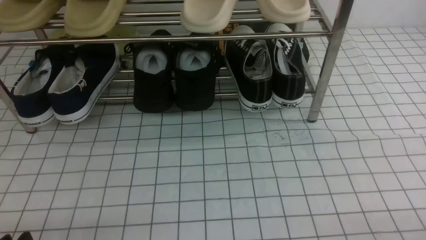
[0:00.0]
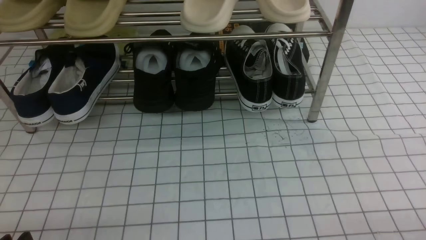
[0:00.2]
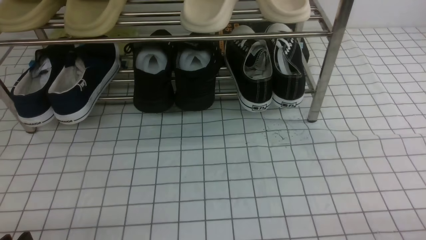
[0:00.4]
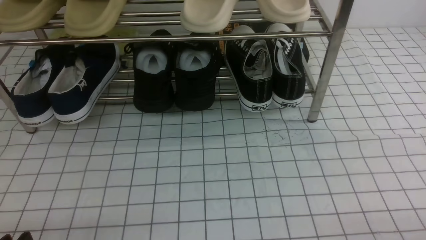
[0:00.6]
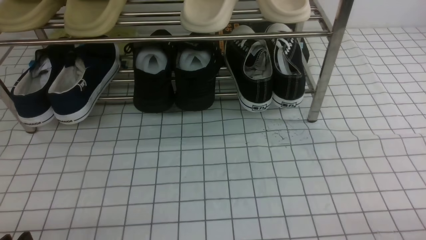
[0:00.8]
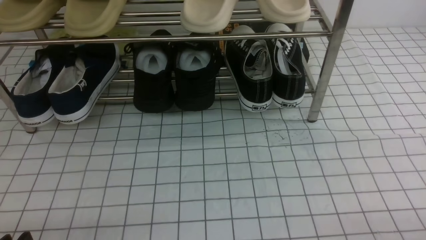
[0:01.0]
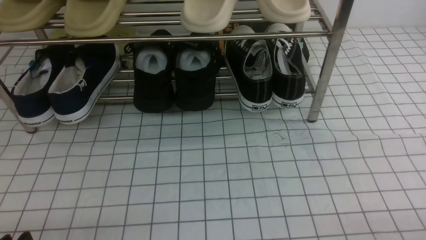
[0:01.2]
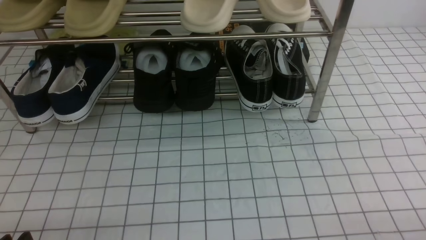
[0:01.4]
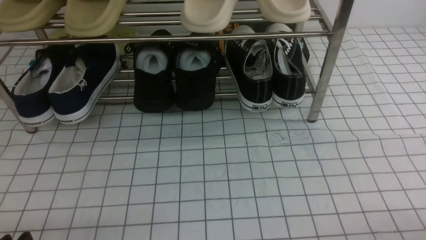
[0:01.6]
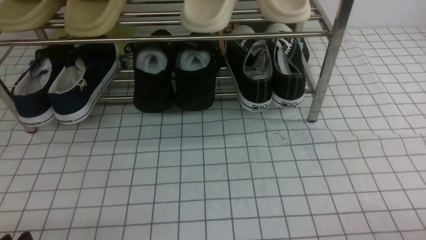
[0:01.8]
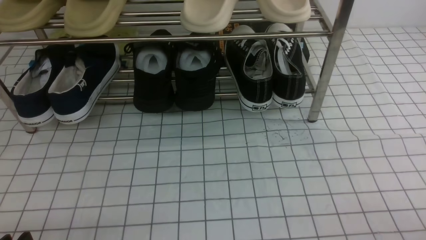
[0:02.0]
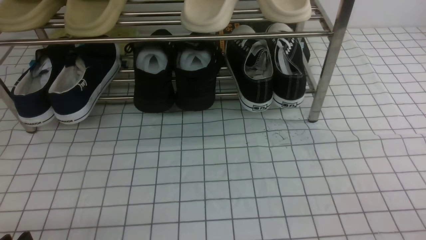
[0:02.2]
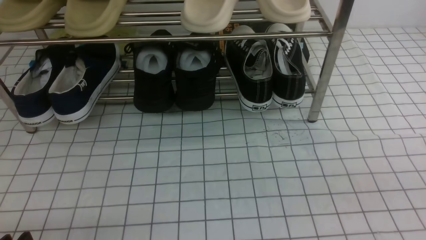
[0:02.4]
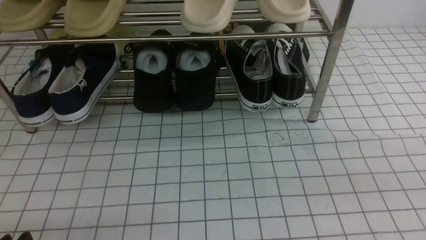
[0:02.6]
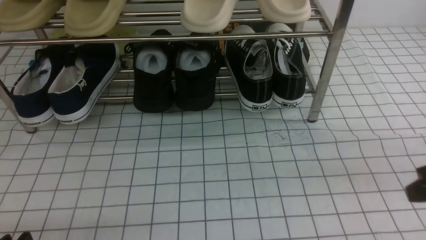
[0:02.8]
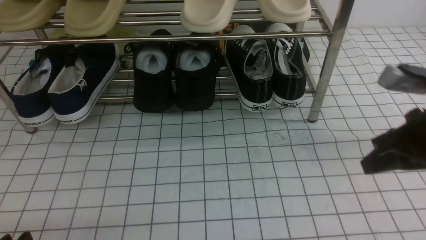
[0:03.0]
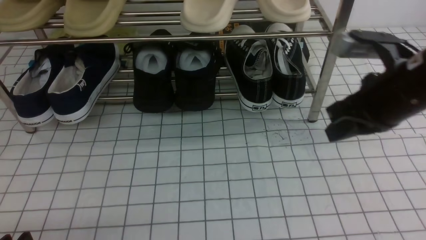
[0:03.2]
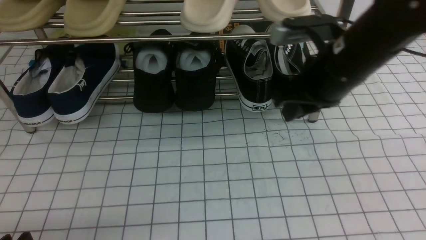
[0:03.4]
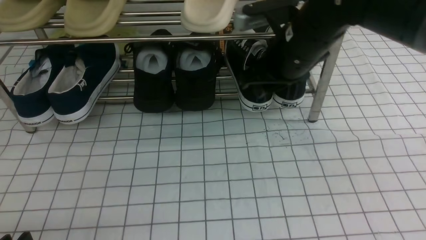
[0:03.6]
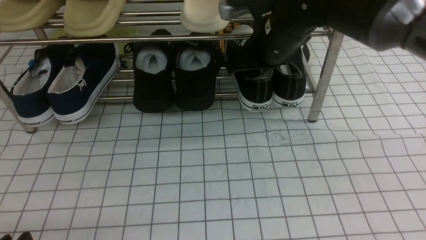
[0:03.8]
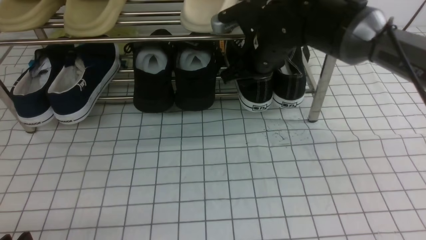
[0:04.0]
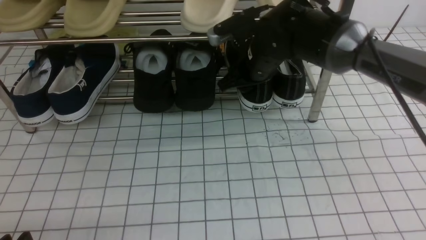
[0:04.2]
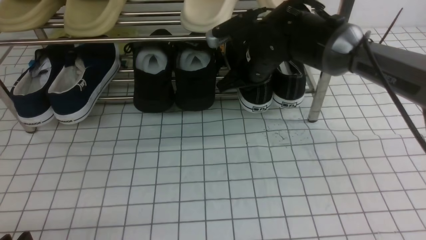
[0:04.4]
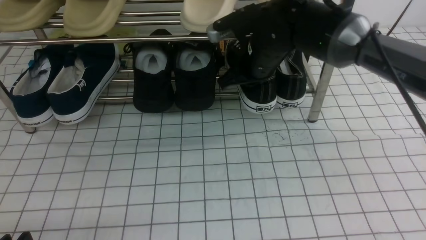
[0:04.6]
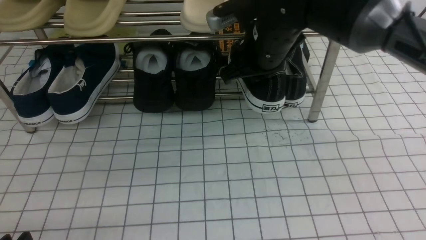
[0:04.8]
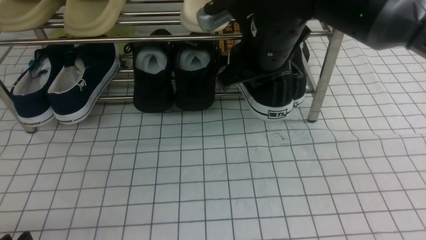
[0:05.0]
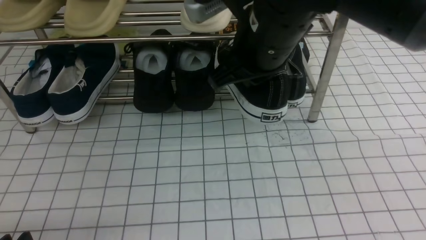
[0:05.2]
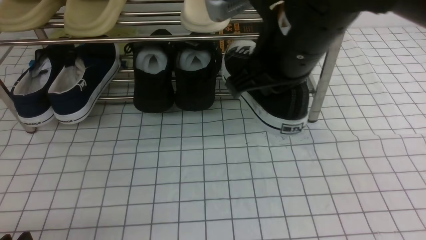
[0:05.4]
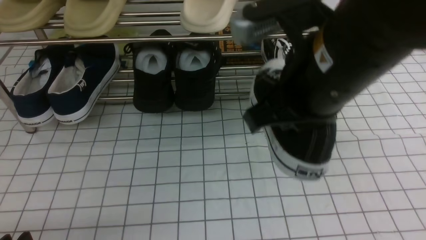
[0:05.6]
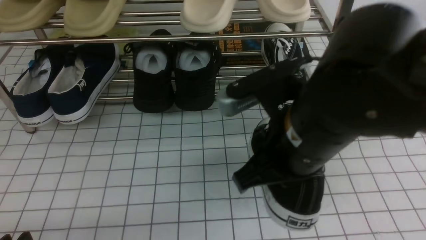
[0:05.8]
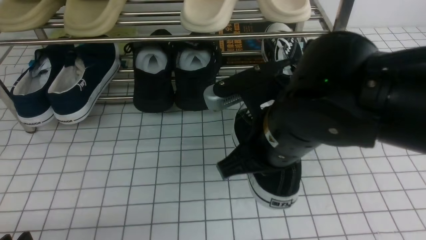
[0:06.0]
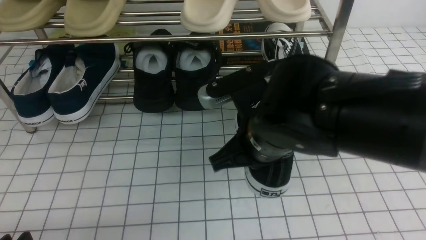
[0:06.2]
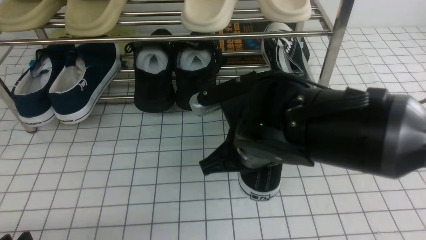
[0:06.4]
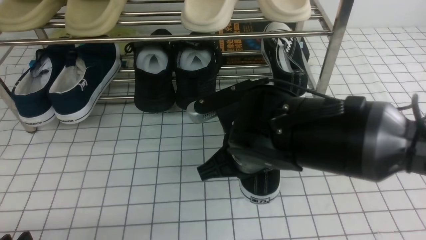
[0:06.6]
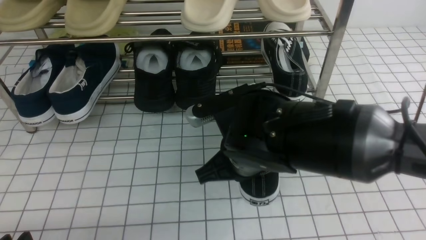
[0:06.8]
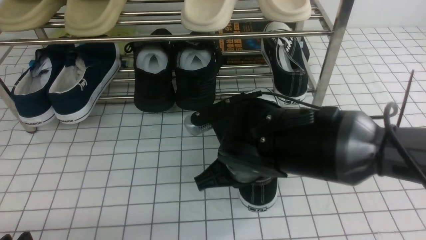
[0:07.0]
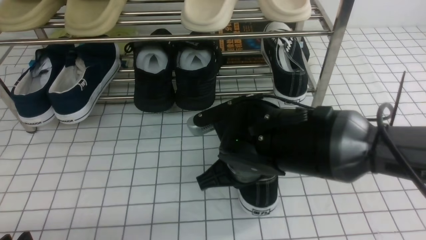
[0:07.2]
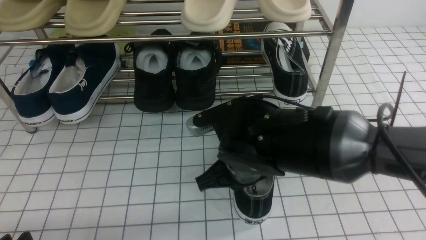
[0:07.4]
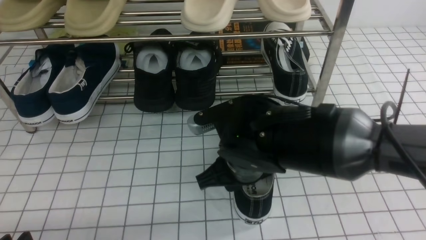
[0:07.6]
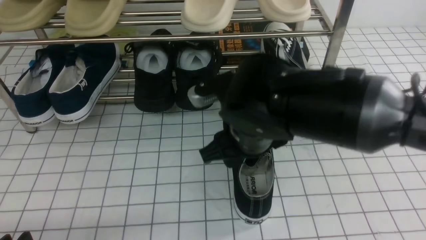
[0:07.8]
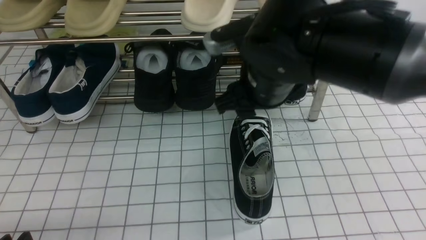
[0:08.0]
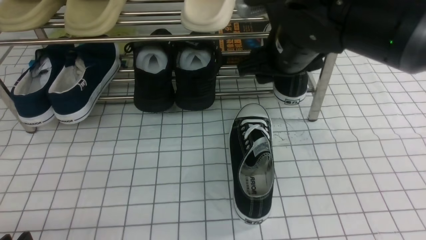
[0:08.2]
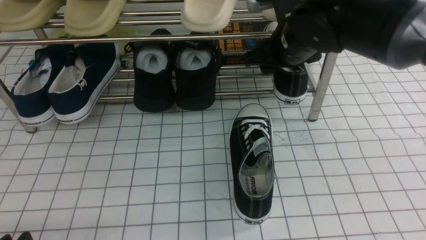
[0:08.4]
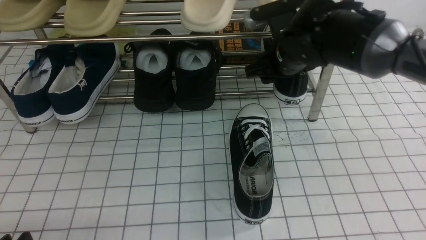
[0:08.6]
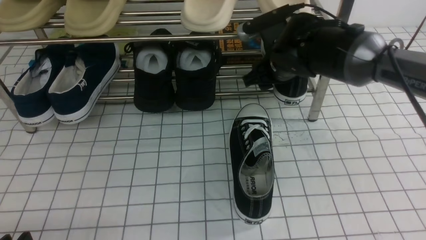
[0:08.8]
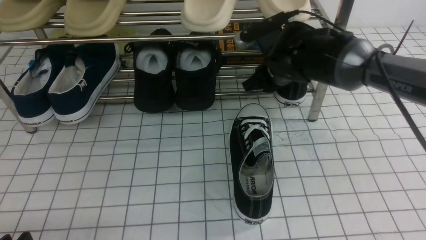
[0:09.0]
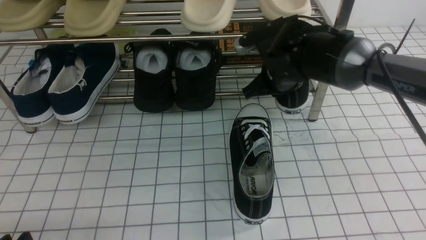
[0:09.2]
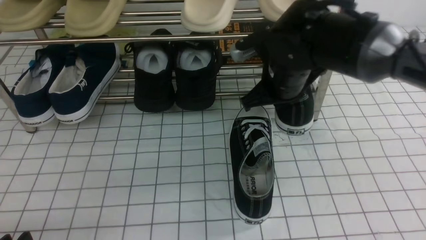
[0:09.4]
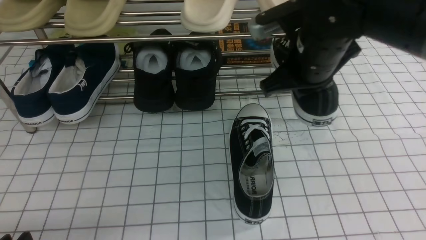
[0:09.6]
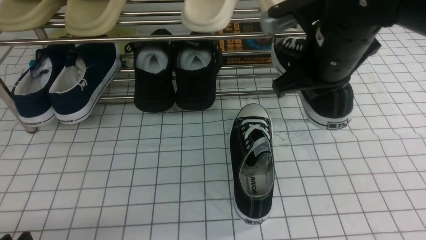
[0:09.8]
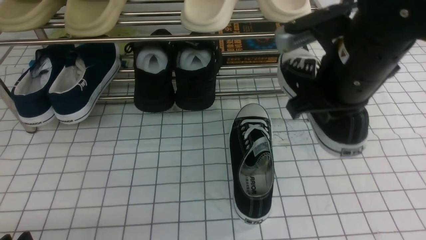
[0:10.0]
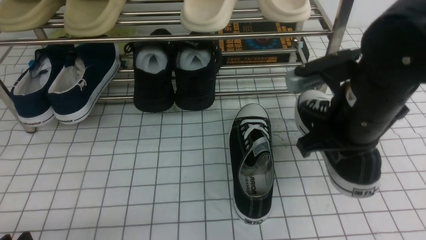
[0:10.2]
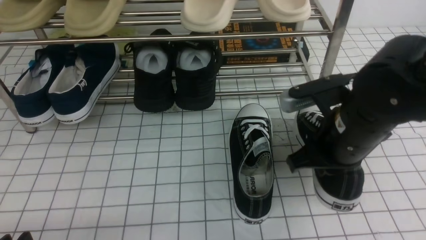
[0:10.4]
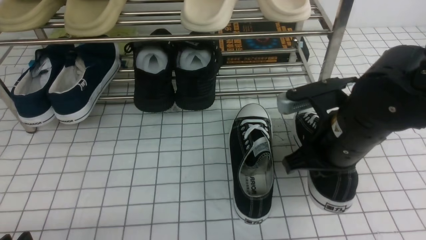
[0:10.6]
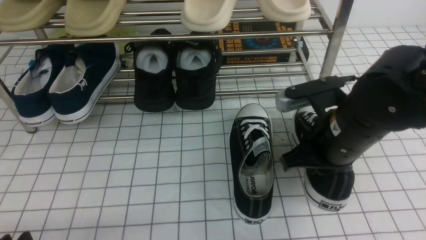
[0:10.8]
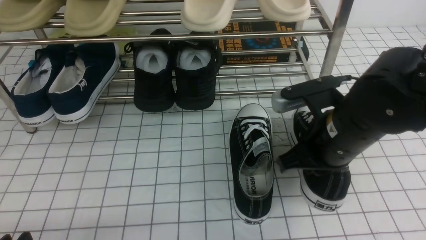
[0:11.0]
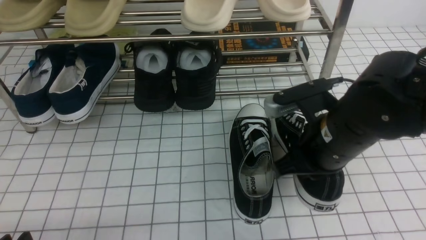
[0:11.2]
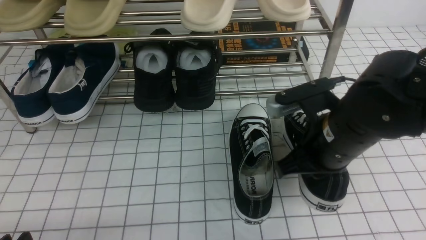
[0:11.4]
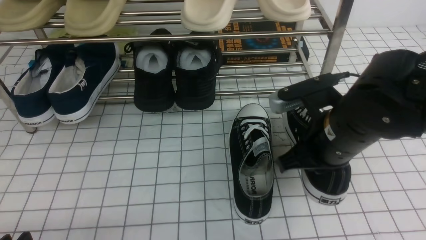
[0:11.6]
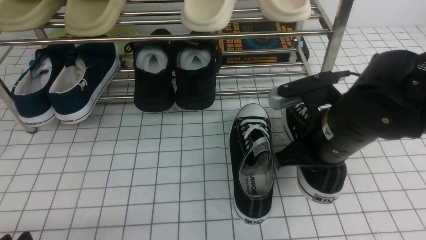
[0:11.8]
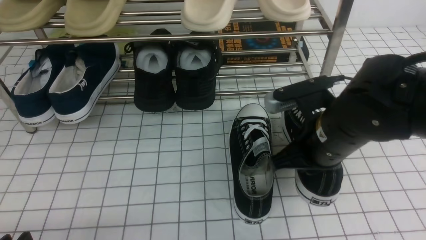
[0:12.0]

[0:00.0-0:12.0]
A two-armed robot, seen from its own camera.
Step, 0:00.0 to 0:04.4: use the right arm to clamp a shoe on the right side of the shoe rack.
Step, 0:04.6 to 0:07.8: use the right arm to take out the clamped shoe from the shoe rack and put it down.
Step, 0:08.0 to 0:09.0: use the right arm to clamp a shoe on the right side of the shoe rack.
0:01.6 to 0:03.0: The right gripper is displaced forward and upward by some 20 cm, and closes its fingers.
0:03.0 to 0:04.4: The right gripper is displaced forward and to the left by roughly 30 cm, and opens, then closes once more.
0:04.4 to 0:06.0: The right gripper travels backward by about 20 cm.
0:06.0 to 0:07.6: The right gripper goes roughly 10 cm downward, and opens its fingers.
0:07.6 to 0:09.0: The right gripper travels forward and to the right by some 20 cm.
0:09.0 to 0:10.4: The right gripper is displaced backward by some 15 cm, and closes up.
0:10.4 to 0:12.0: There are only small adjustments of the grippers.

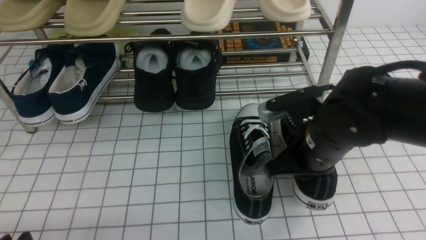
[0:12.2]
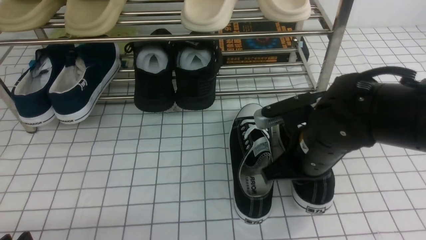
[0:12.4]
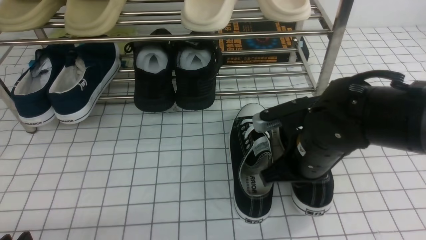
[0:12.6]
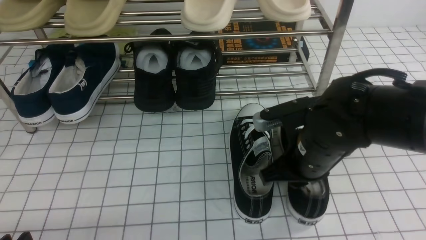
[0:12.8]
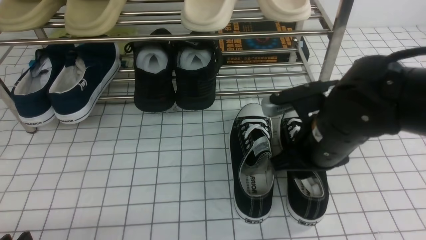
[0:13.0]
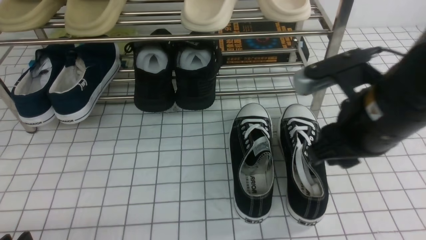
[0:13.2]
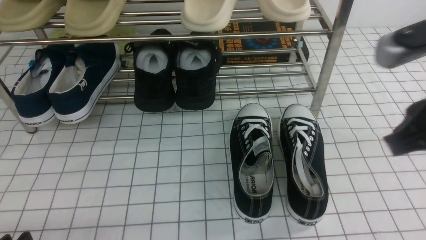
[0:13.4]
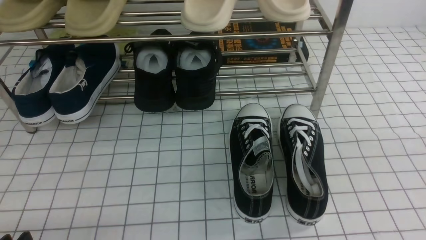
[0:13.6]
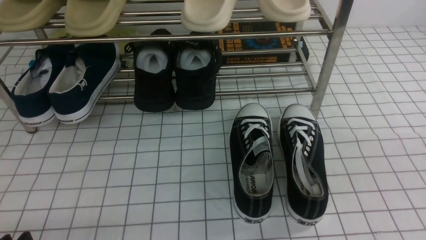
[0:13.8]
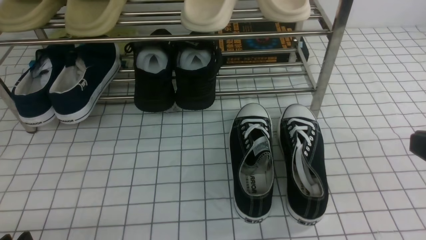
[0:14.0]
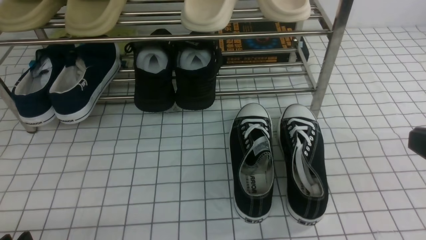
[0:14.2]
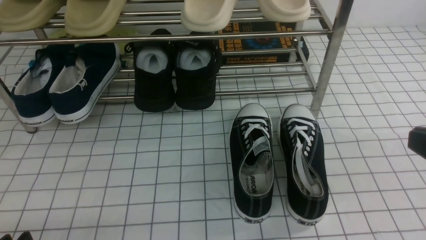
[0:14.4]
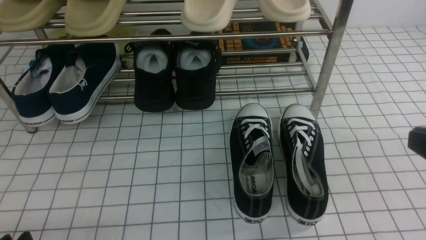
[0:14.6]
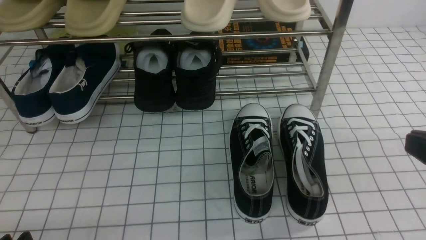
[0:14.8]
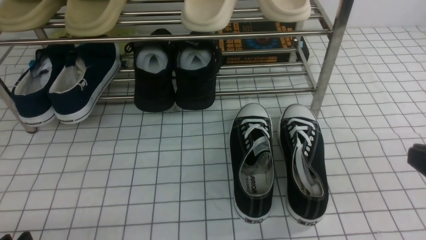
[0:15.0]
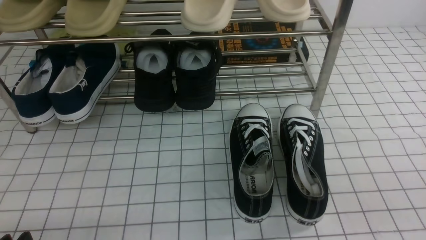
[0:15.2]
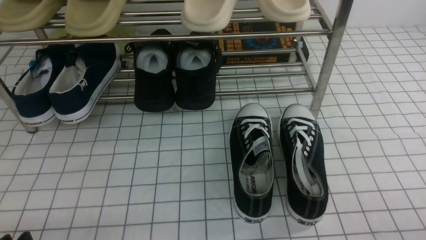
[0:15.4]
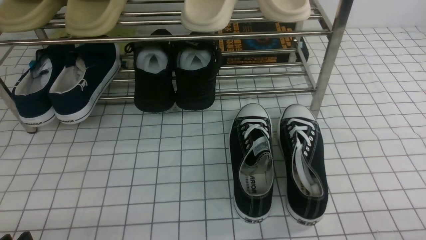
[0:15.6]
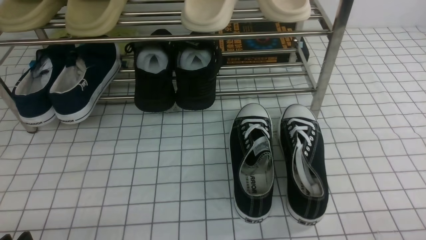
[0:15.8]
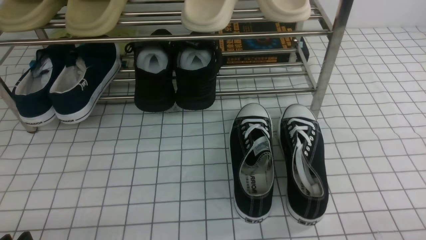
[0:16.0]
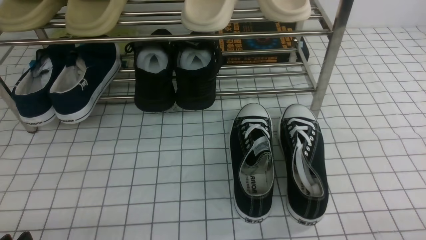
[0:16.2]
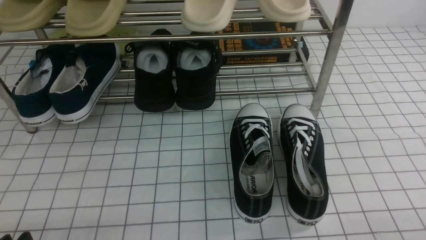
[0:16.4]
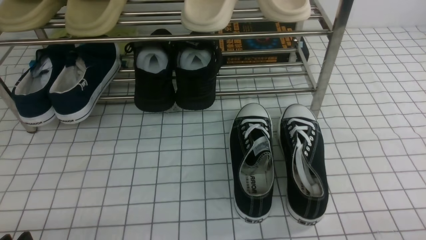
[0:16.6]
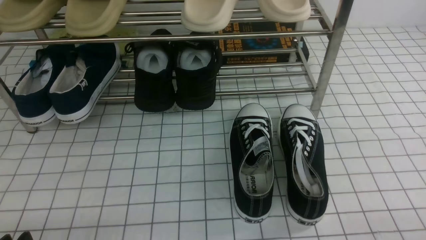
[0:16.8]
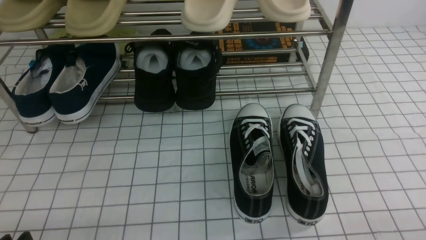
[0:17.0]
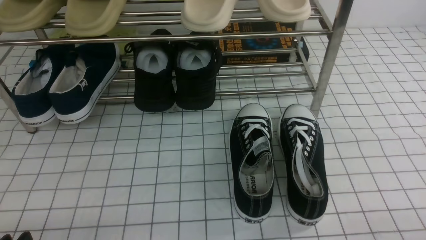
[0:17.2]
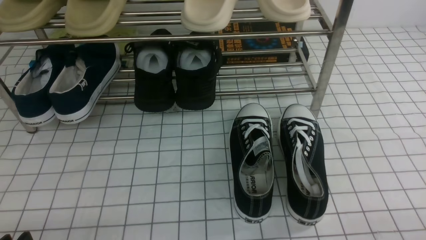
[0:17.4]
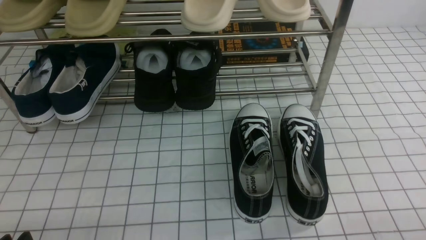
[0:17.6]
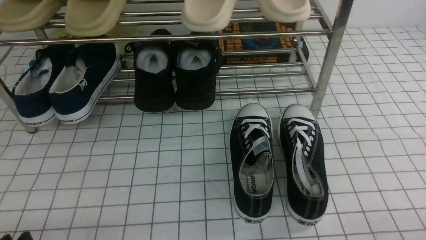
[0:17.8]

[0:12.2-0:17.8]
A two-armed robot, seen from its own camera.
0:12.2 to 0:13.6: The right gripper heads upward, backward and to the right, covering roughly 20 cm, and opens, then closes once more.
0:13.6 to 0:15.0: The right gripper is displaced downward by some 5 cm.
0:16.4 to 0:17.8: Both grippers stay put.
